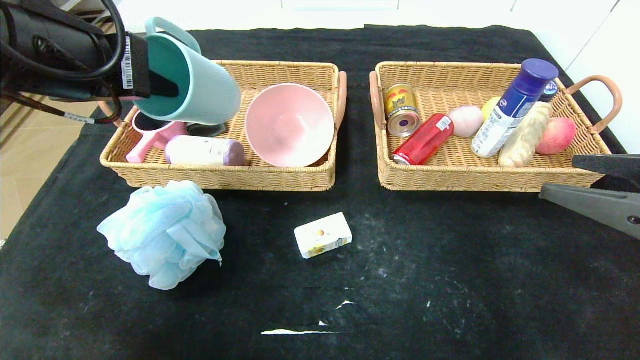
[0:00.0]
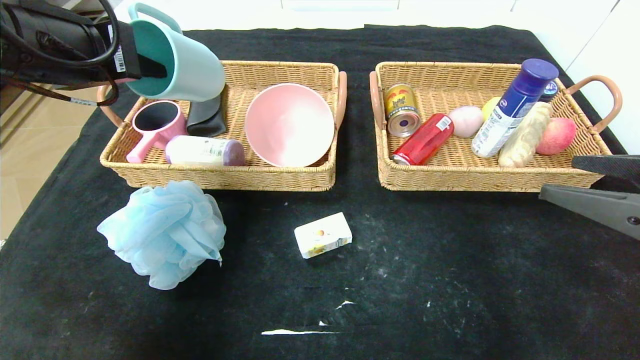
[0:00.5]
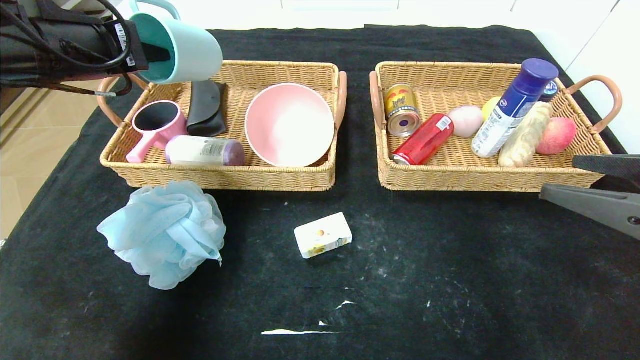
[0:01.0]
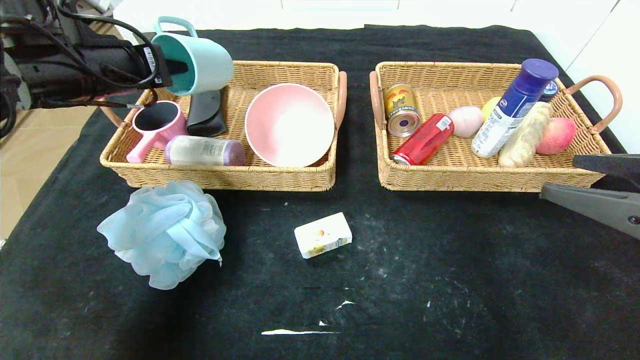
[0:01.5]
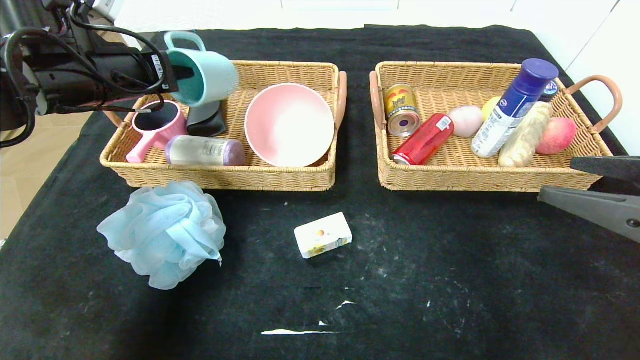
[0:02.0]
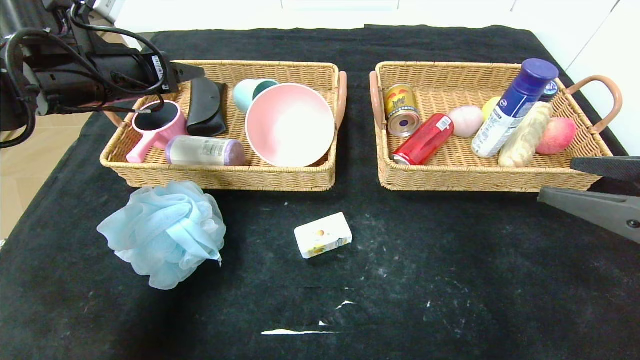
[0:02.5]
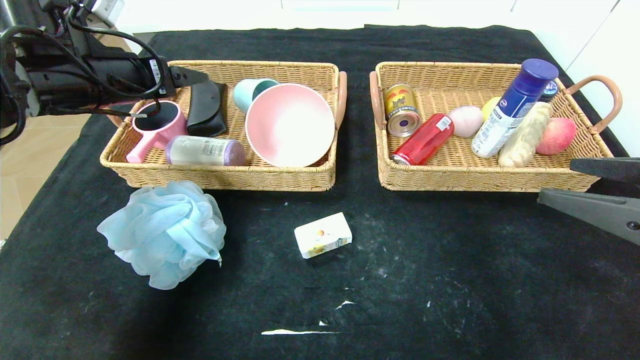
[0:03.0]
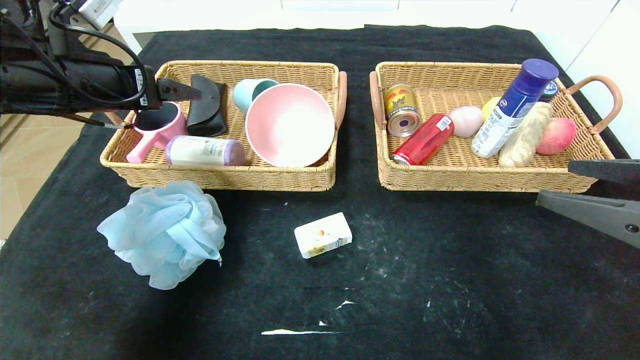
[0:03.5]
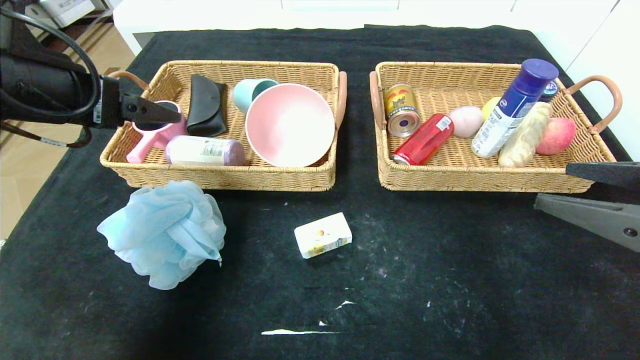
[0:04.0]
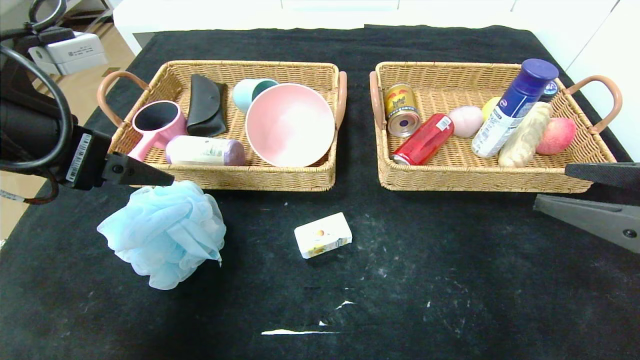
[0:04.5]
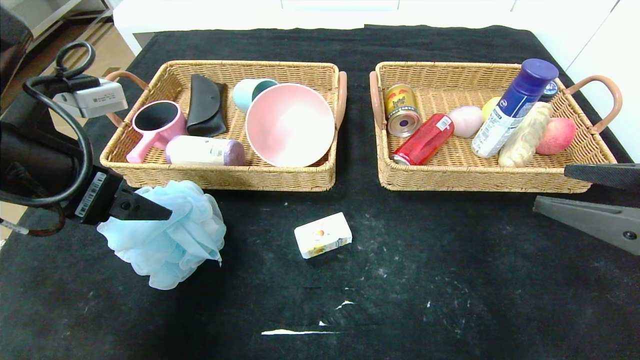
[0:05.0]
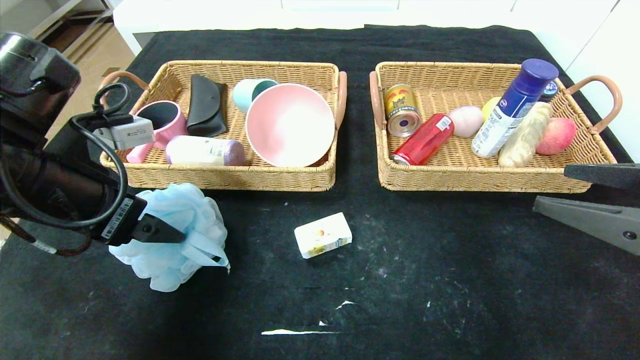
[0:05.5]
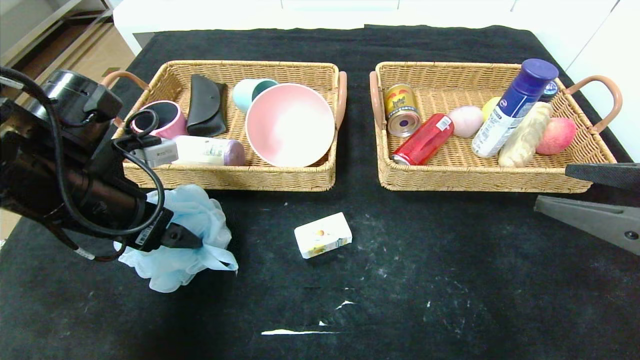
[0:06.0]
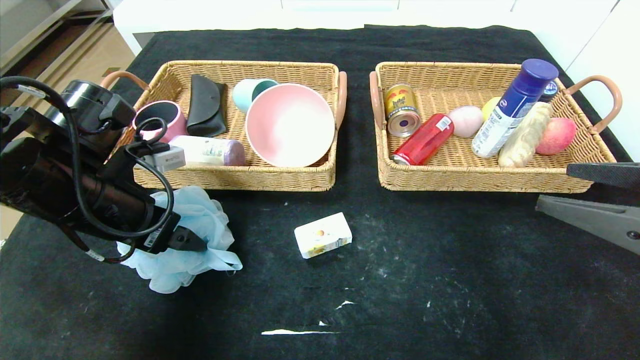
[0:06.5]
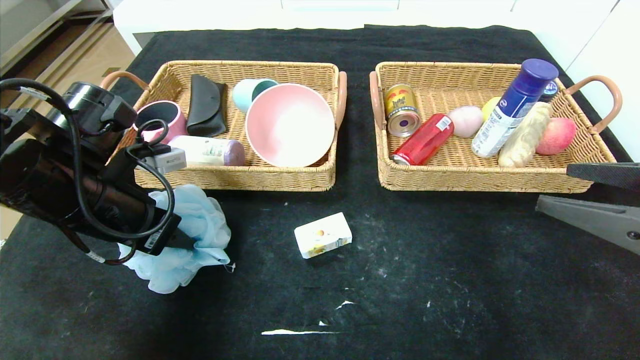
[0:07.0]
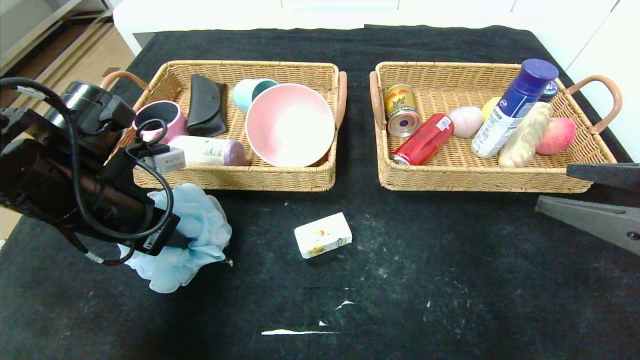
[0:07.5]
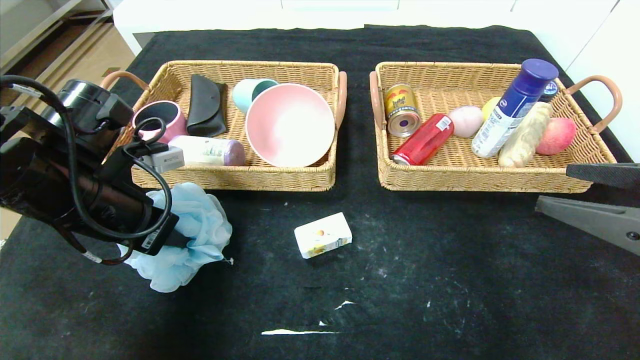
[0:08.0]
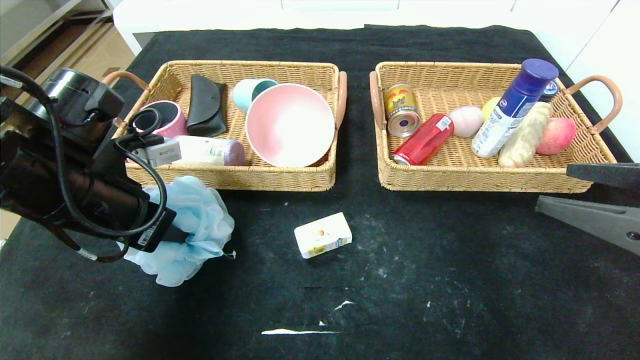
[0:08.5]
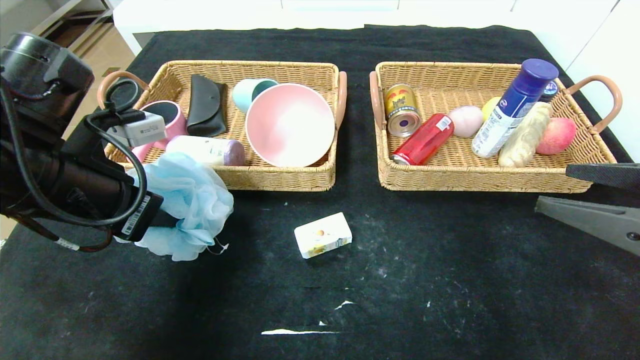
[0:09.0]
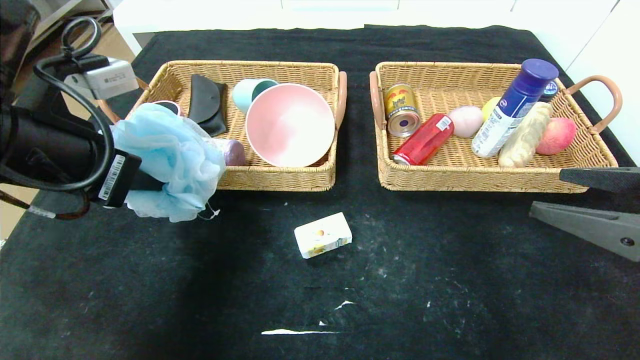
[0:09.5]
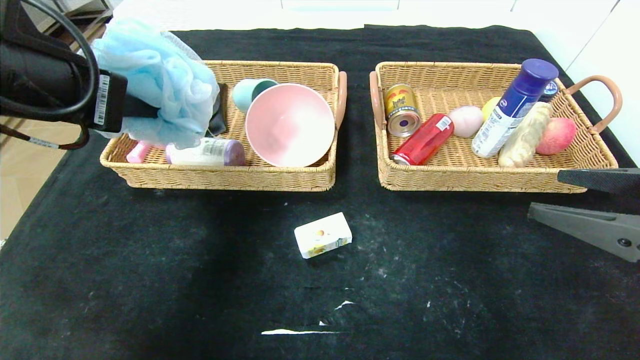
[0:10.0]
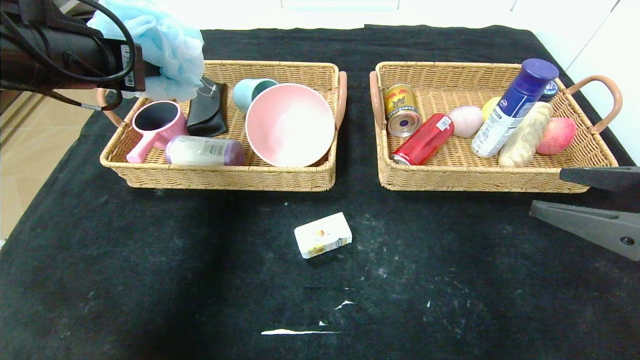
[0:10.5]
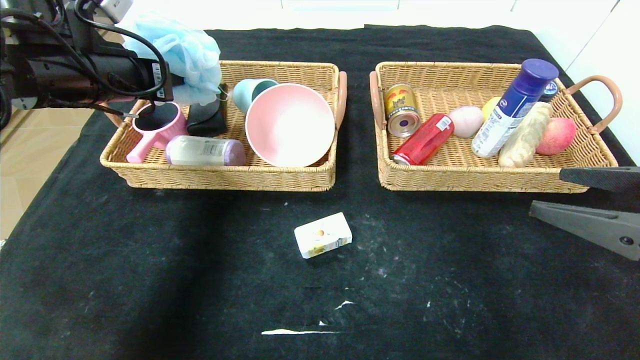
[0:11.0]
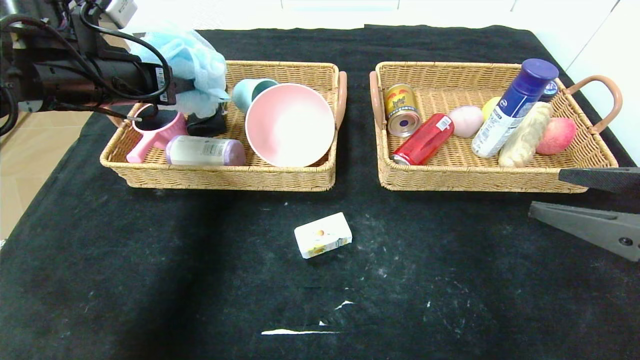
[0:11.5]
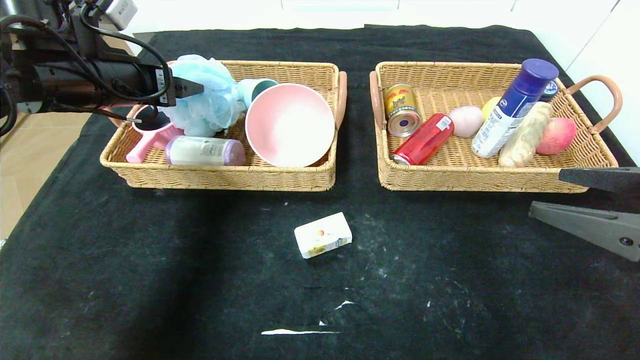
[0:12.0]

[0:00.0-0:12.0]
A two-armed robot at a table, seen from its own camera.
Step, 0:00.0 to 0:02.0: Grasp the blue cup and put it in the left basket.
0:00.0 to 0:02.0: The left gripper travels forward and to the left by approximately 15 cm.
0:02.0 to 0:04.0: The left gripper travels backward by roughly 10 cm, and opens its fingers.
0:04.0 to 0:06.0: The left gripper heads downward, covering roughly 10 cm.
0:06.0 to 0:08.0: The left gripper closes up.
0:08.0 to 0:10.0: The left gripper moves upward, some 10 cm.
0:10.0 to 0:12.0: The left gripper goes approximately 10 cm forward, and opens up.

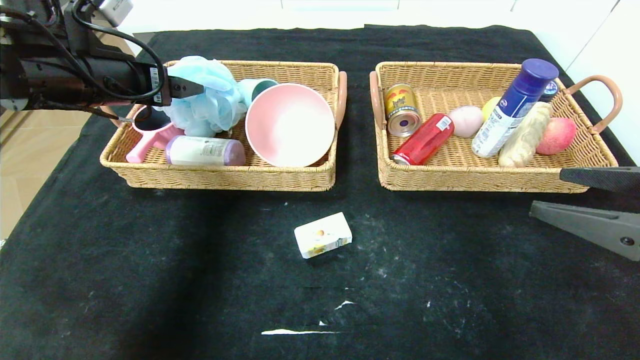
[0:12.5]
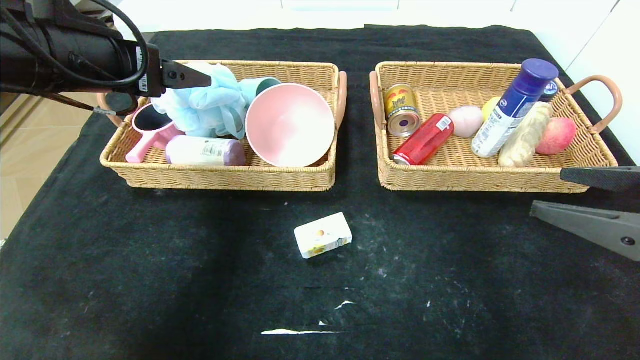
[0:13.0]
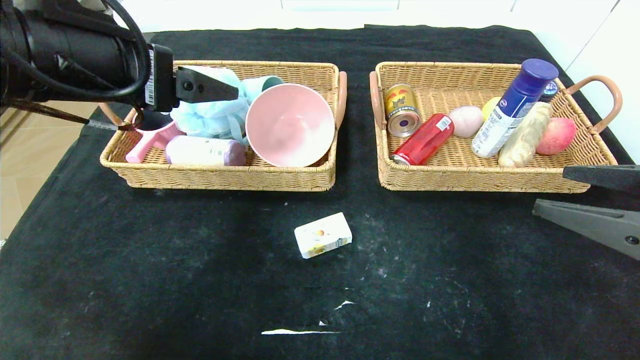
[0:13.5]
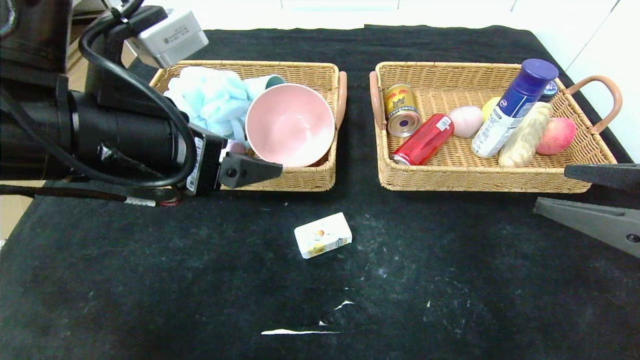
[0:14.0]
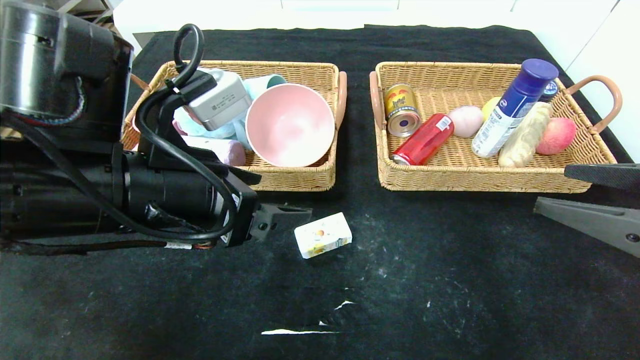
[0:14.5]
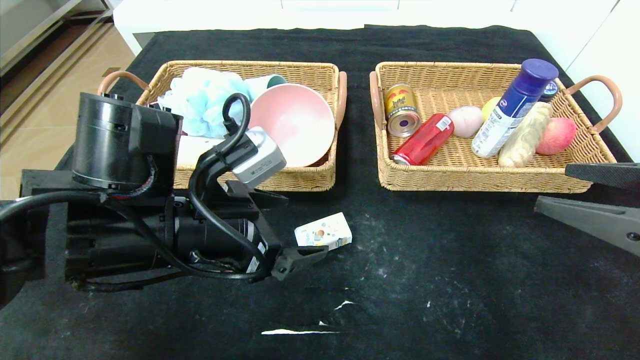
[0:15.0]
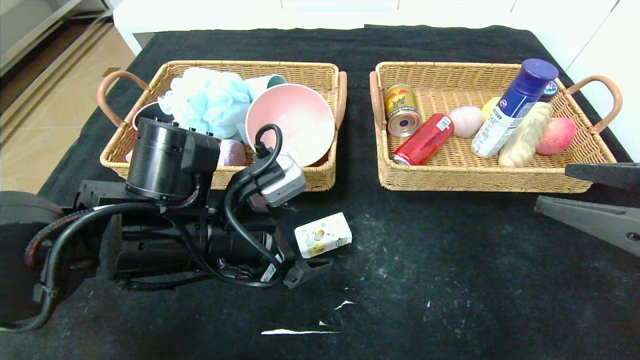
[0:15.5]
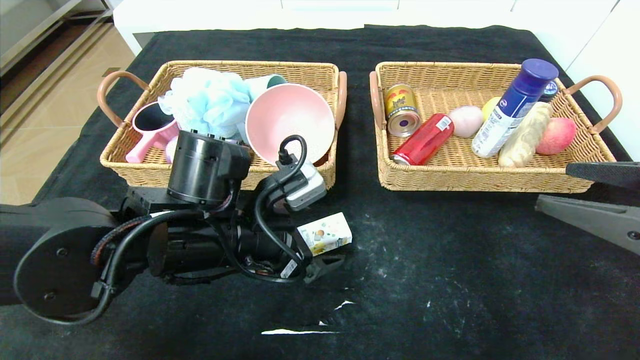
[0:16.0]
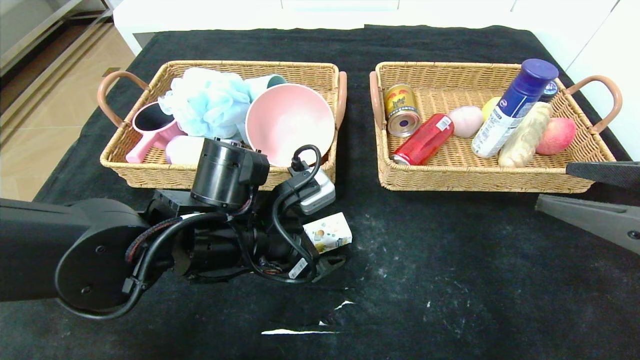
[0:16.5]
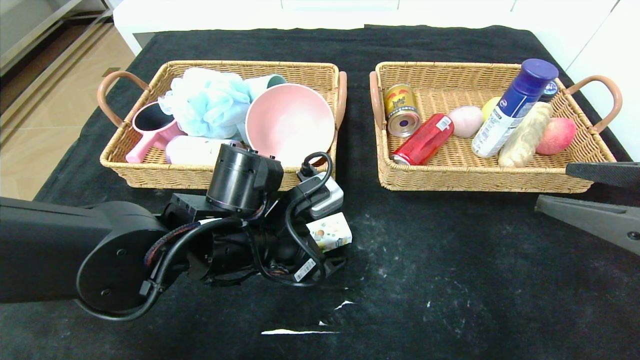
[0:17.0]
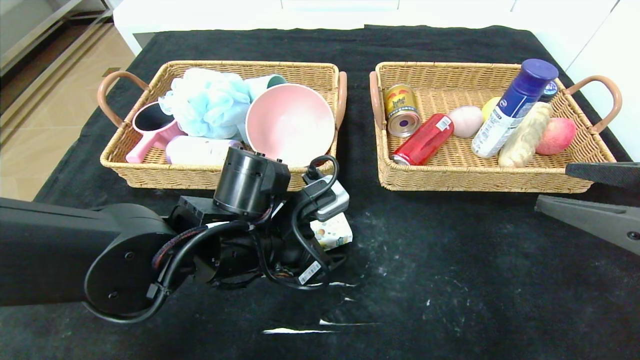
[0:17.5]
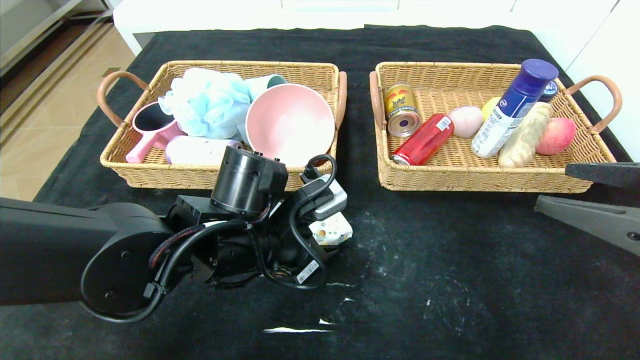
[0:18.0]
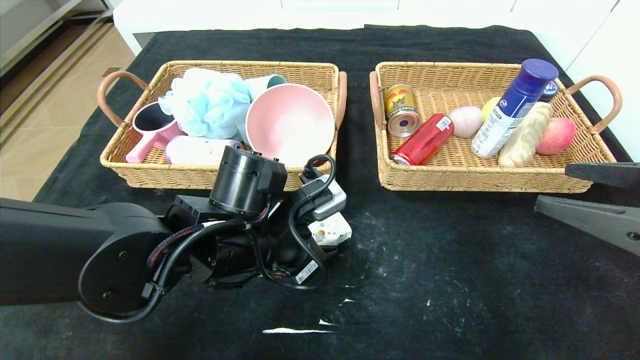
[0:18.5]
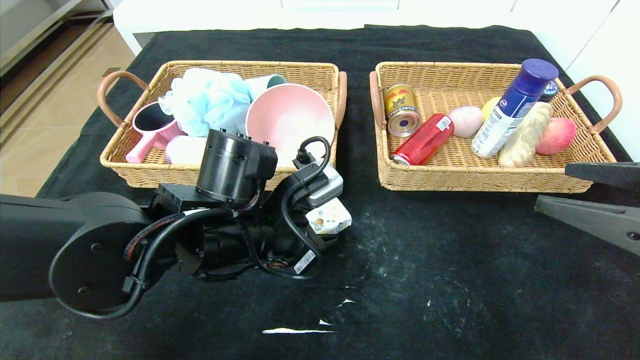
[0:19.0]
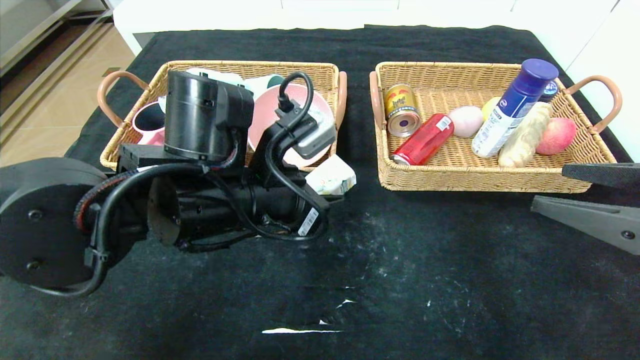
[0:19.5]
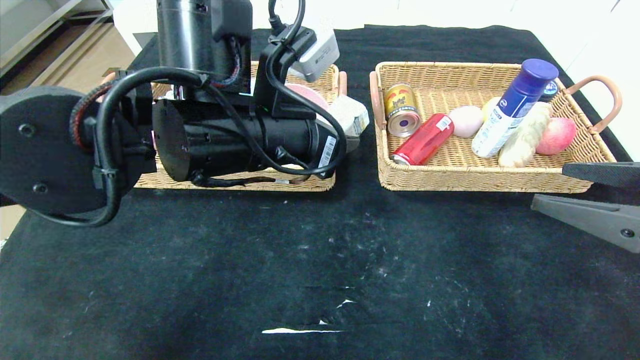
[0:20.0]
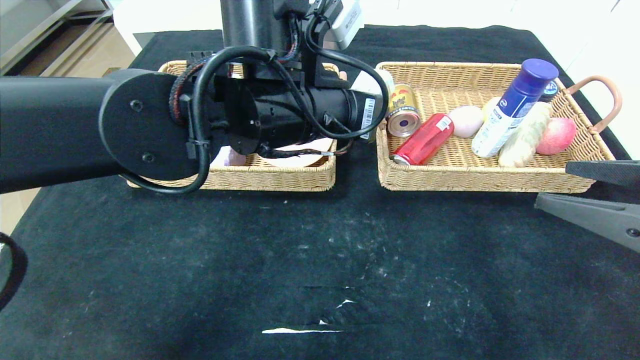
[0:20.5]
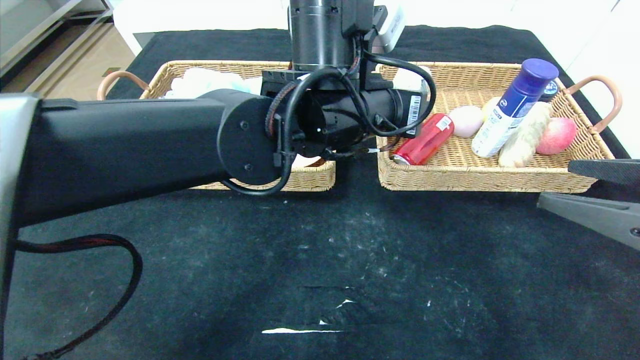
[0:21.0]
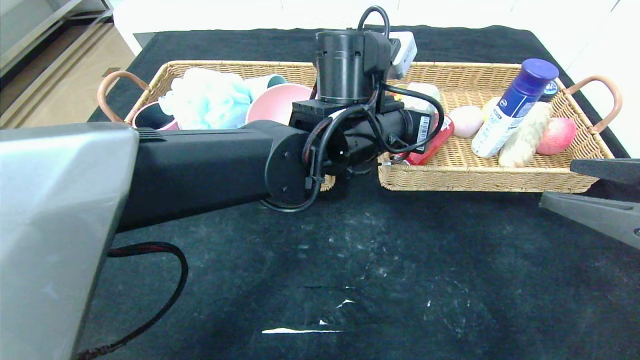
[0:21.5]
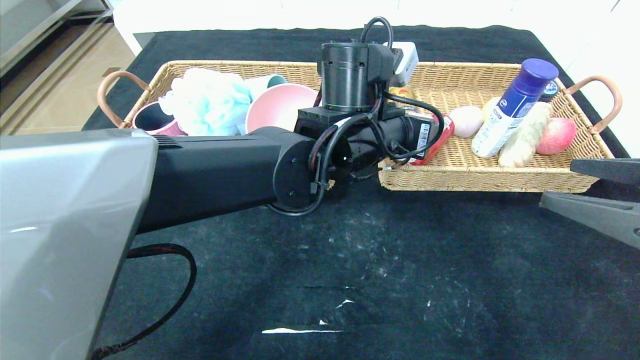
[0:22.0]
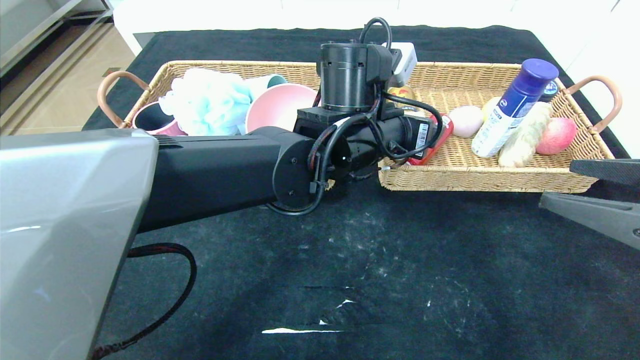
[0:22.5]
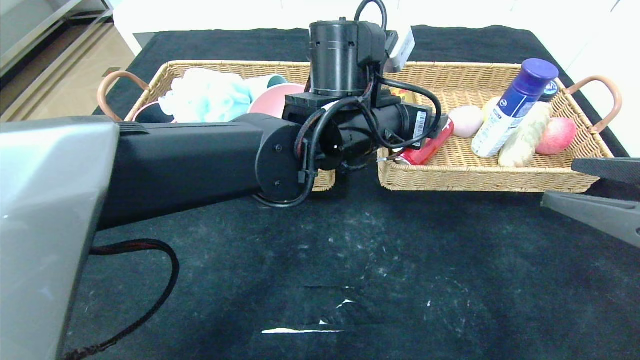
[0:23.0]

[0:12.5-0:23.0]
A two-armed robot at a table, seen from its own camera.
0:12.5 to 0:14.5: The left gripper shifts about 20 cm to the right, backward and downward.
0:14.5 to 0:16.5: The left gripper goes approximately 10 cm downward and forward.
0:16.5 to 0:19.0: The left gripper closes its fingers.
0:19.0 to 0:21.0: The left gripper goes about 15 cm to the right, upward and forward.
0:21.0 to 0:23.0: The left gripper opens up.
